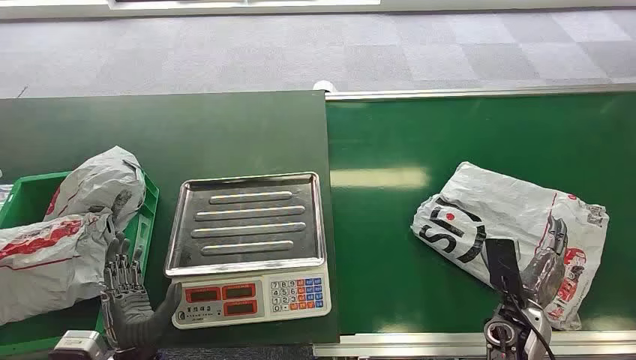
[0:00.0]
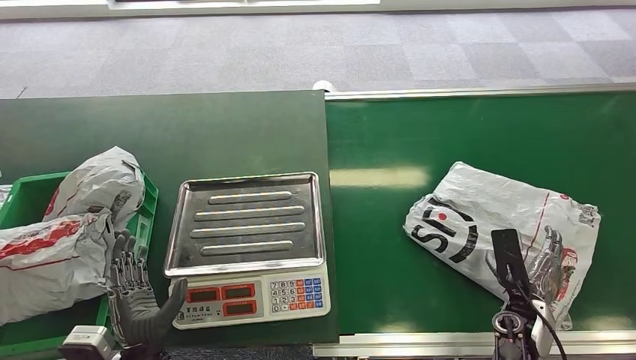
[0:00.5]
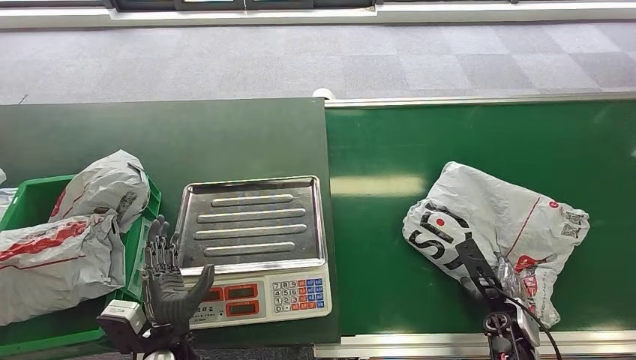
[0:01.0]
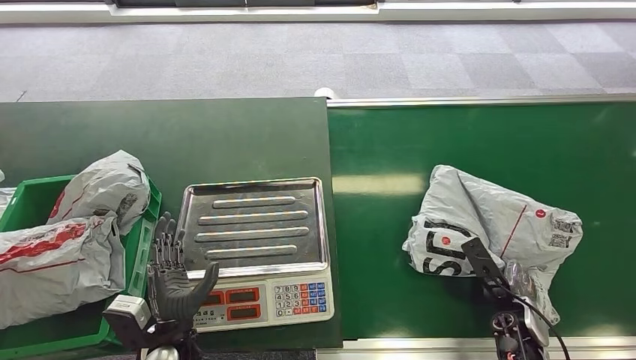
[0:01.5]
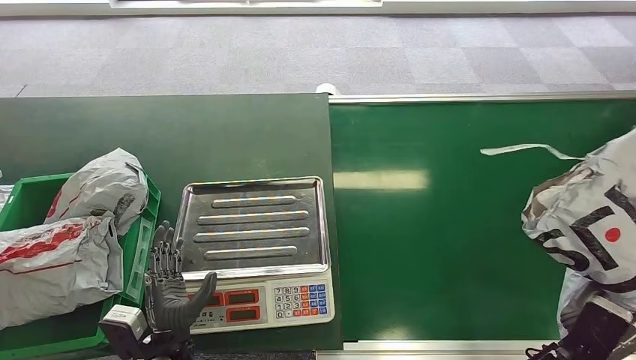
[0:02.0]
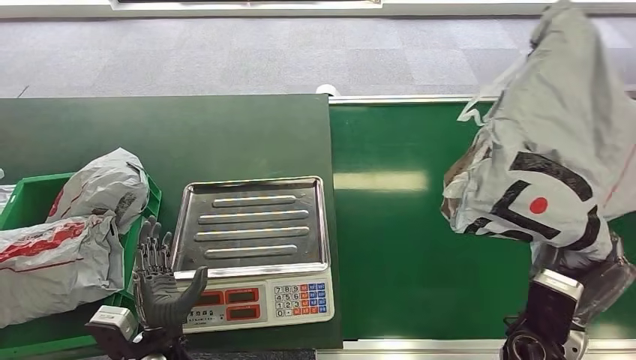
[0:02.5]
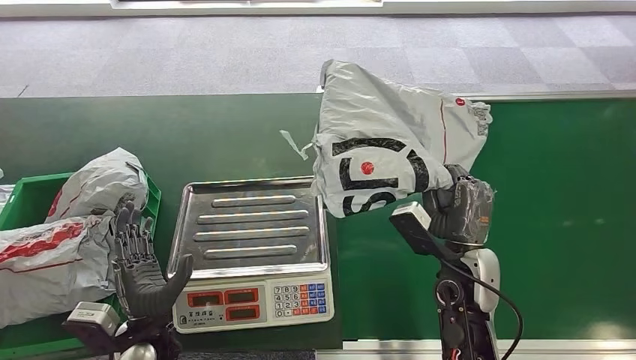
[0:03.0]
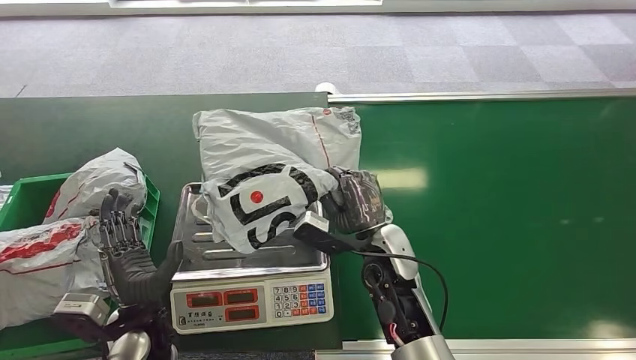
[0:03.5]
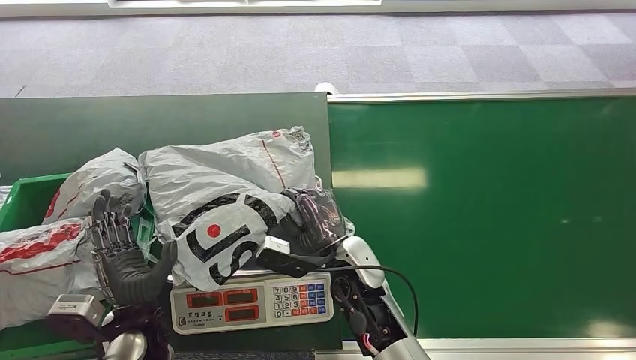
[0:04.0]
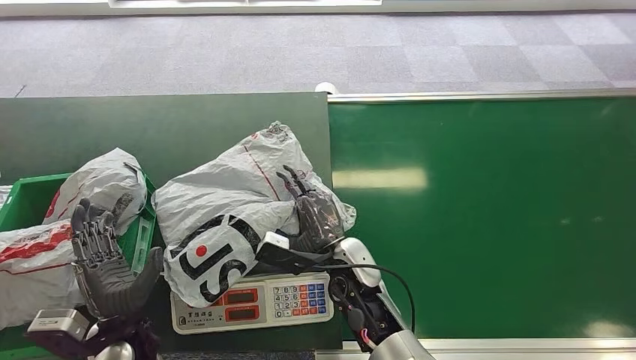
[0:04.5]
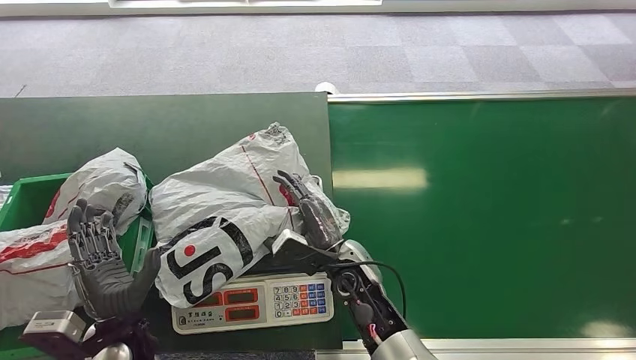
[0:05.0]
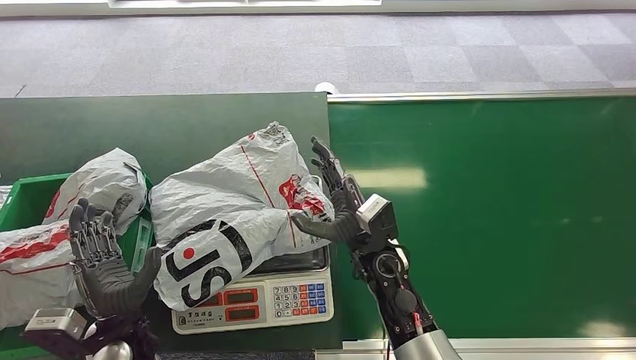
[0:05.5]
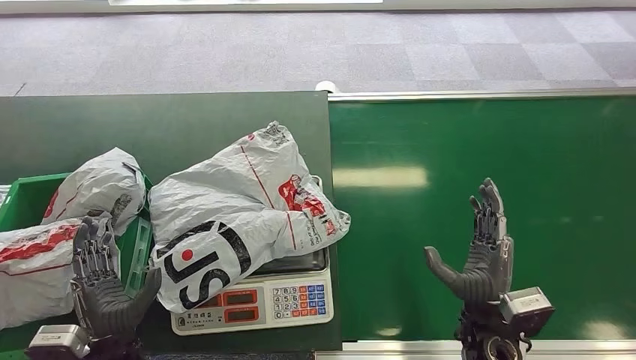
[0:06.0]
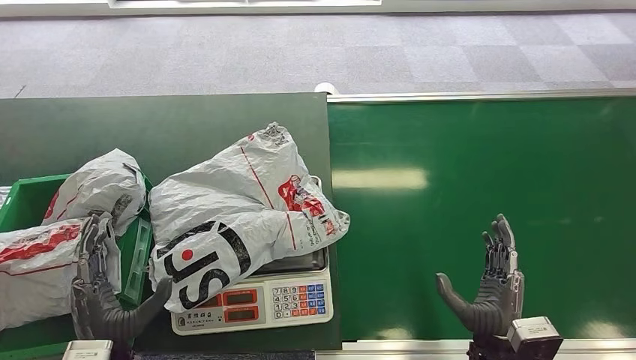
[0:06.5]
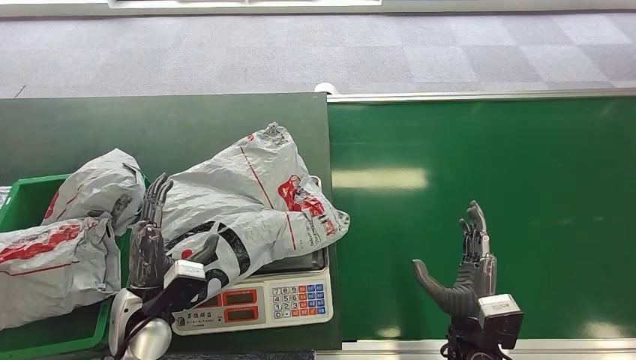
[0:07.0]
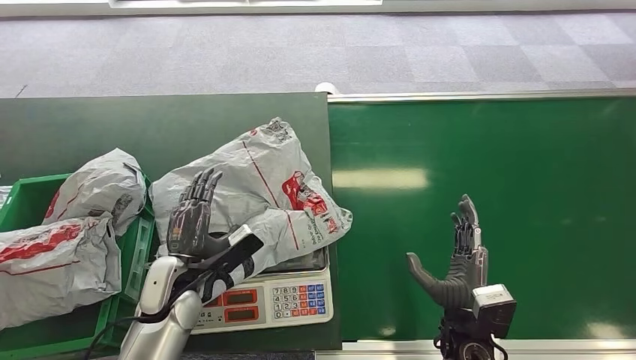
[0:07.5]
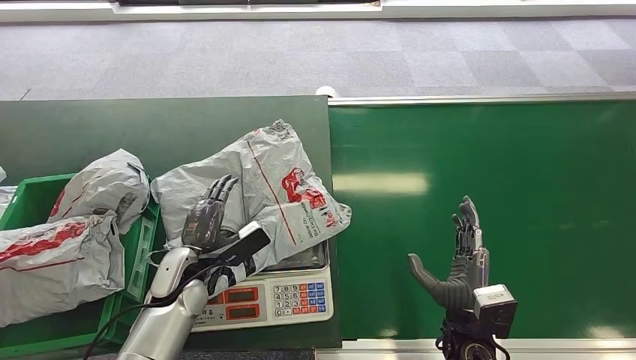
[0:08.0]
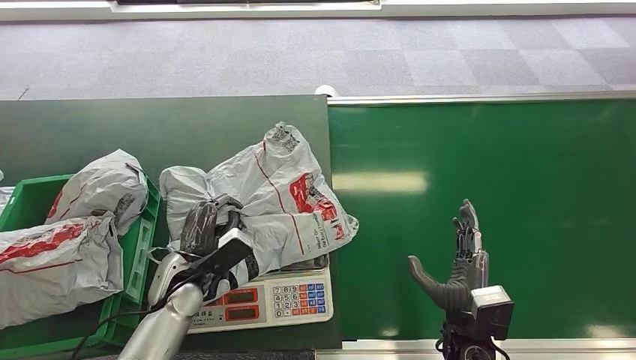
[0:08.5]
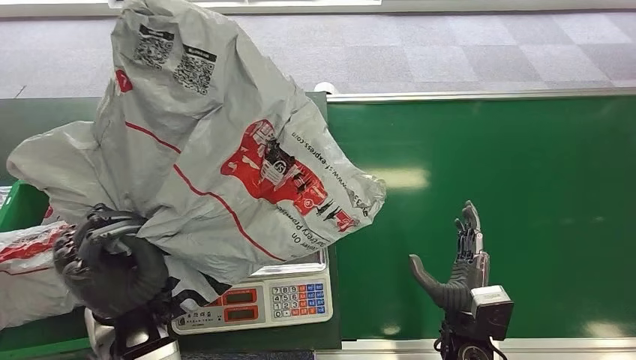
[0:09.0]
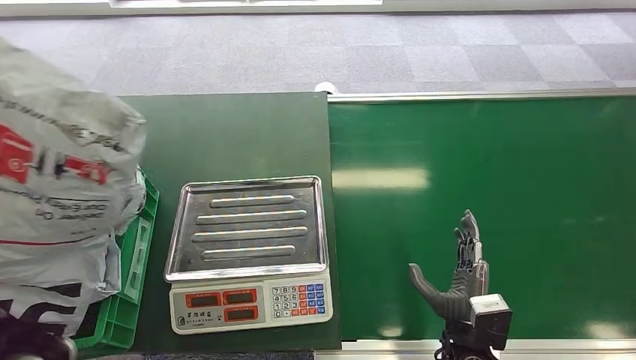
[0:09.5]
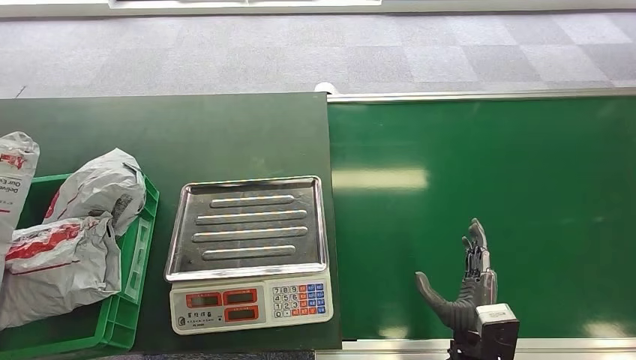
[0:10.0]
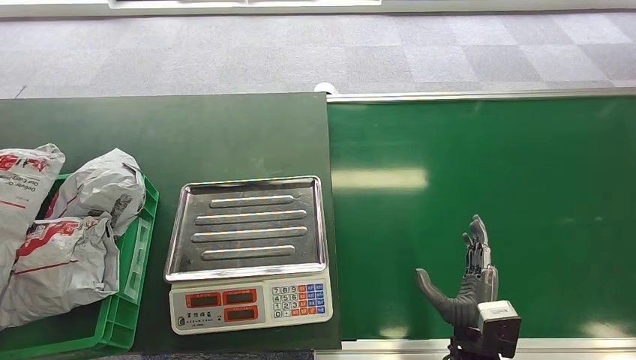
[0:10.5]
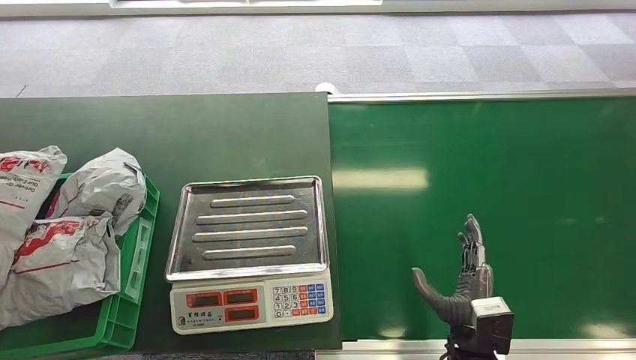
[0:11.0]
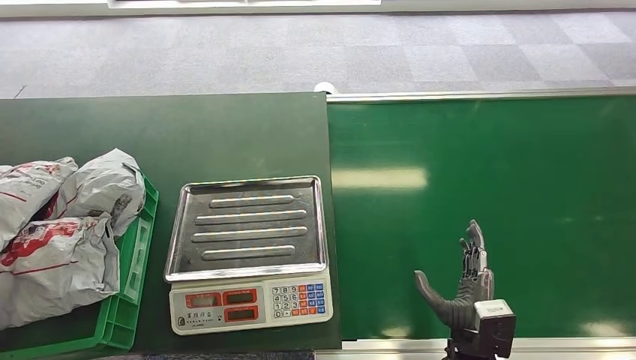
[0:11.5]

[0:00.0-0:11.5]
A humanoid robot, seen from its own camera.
Task of the whole recording: Weigh the package on the weighing device and place it in the left basket.
Step, 0:00.0 to 0:02.5: Pick up the package from the conveyor belt.
Step, 0:03.5 to 0:05.5: Place the package onto the inbound machine.
Step, 0:07.0 to 0:09.0: Pick up the package from the inbound machine.
Step, 0:10.0 to 0:11.5: Place the package into the parcel locker.
0:06.0 to 0:07.5: The left hand shifts about 15 cm forward and to the right.
0:09.5 to 0:11.5: The left hand moves to the left and downward, about 15 cm.

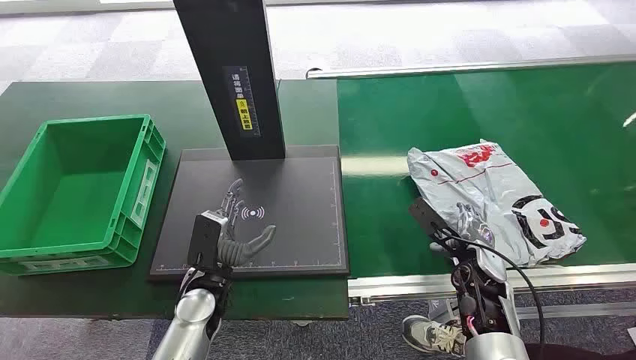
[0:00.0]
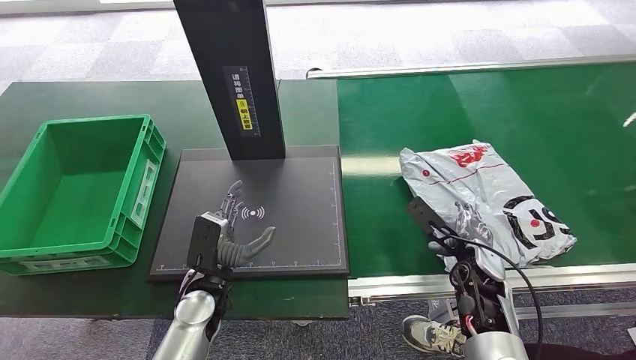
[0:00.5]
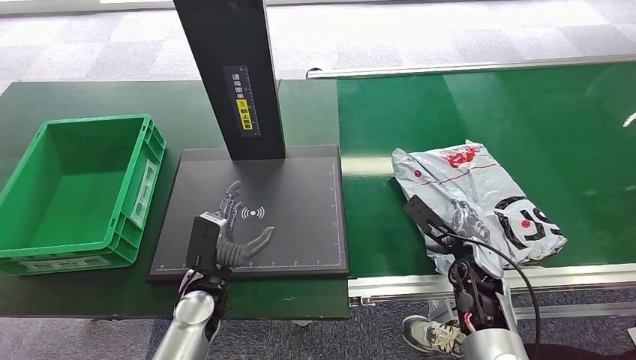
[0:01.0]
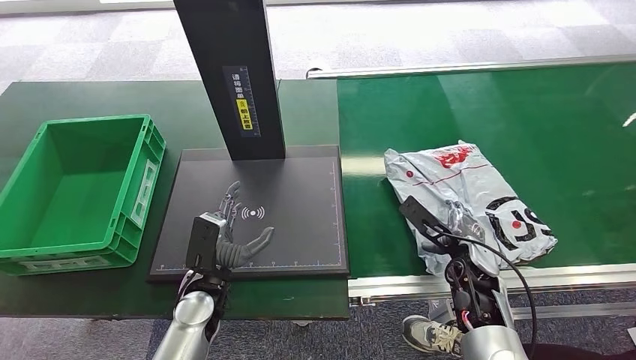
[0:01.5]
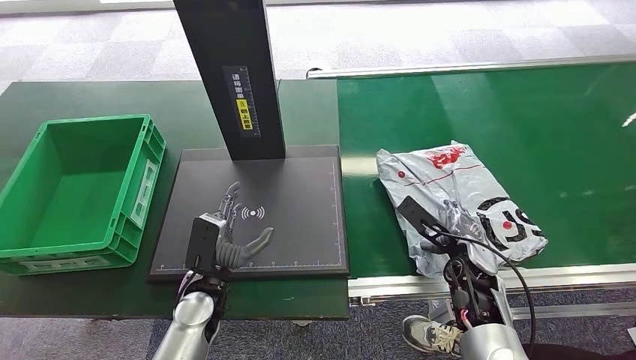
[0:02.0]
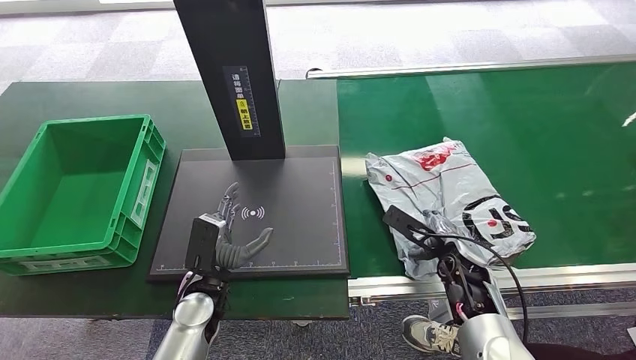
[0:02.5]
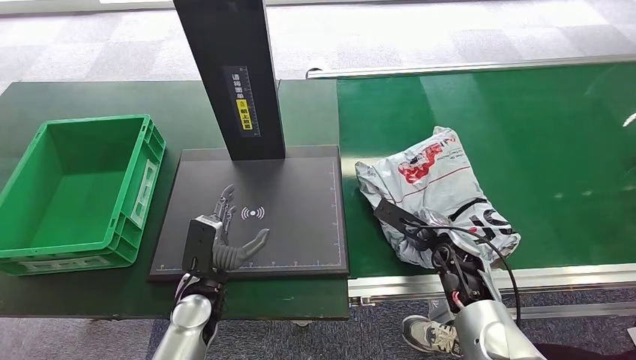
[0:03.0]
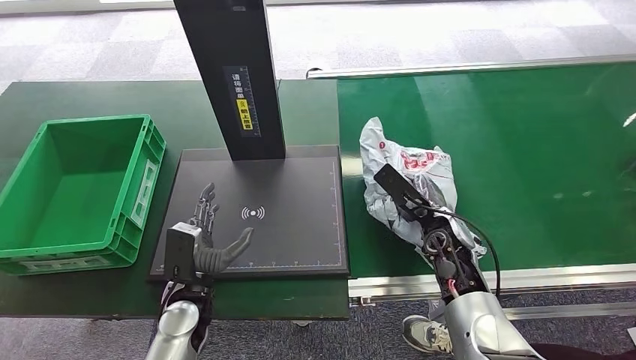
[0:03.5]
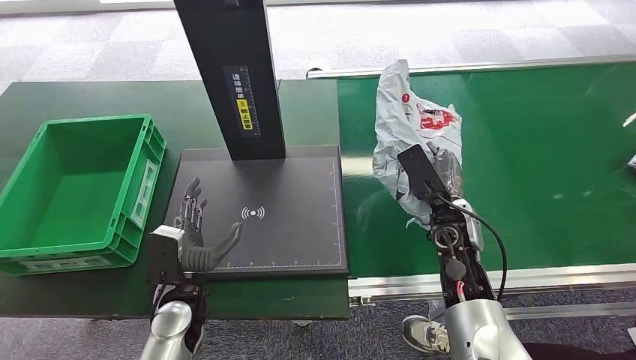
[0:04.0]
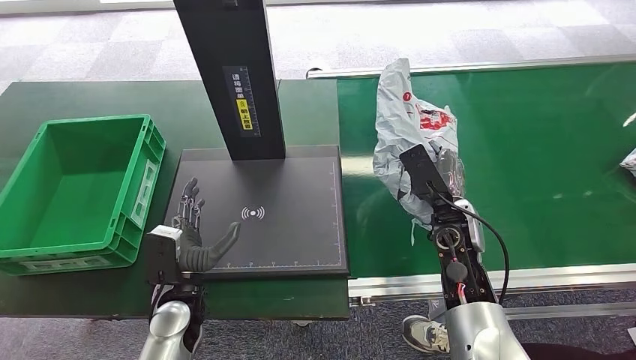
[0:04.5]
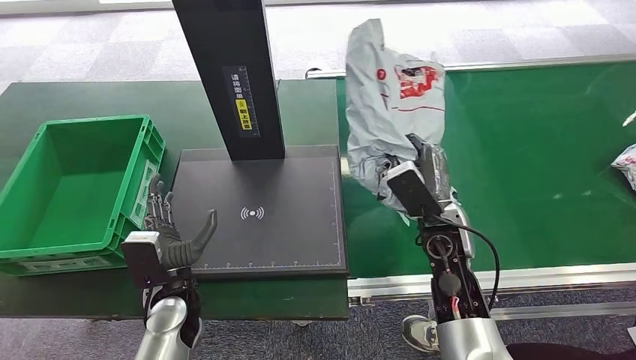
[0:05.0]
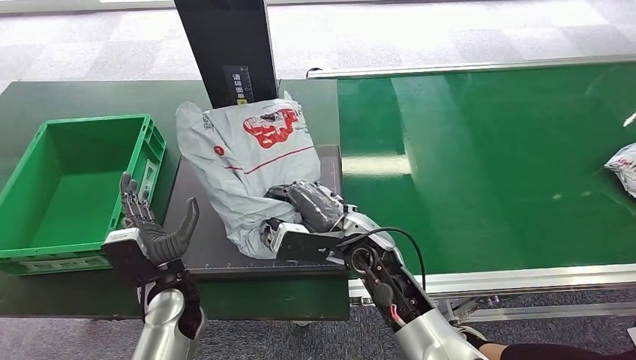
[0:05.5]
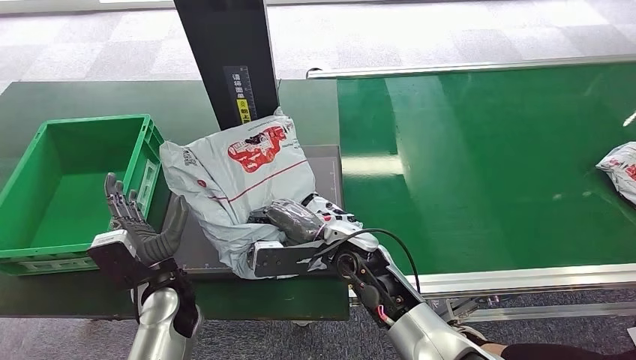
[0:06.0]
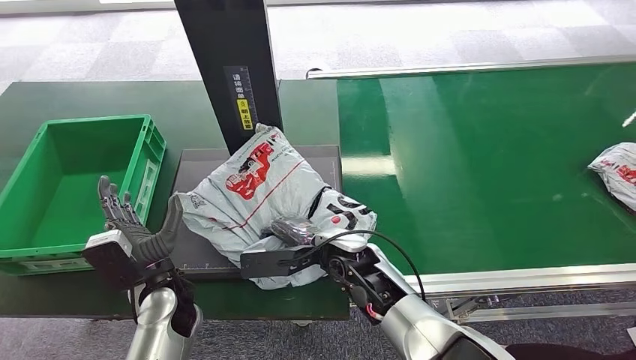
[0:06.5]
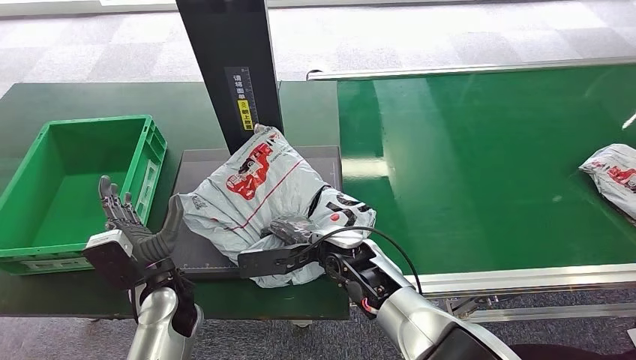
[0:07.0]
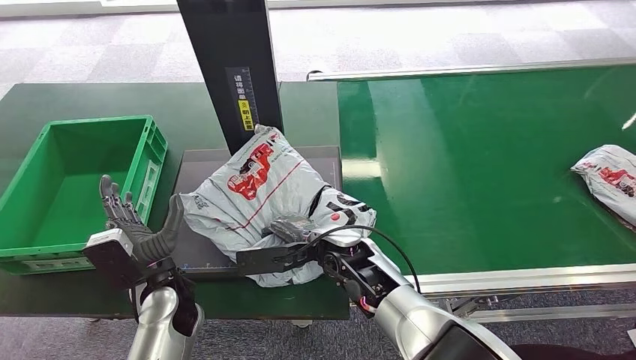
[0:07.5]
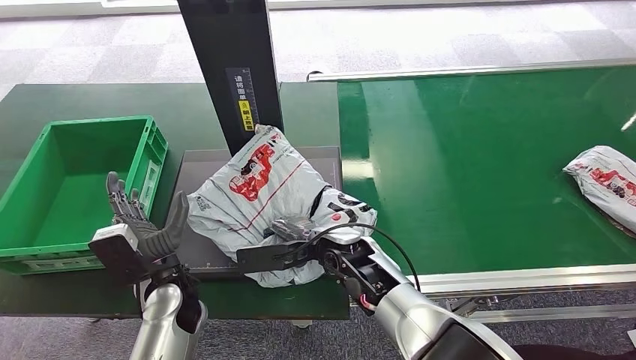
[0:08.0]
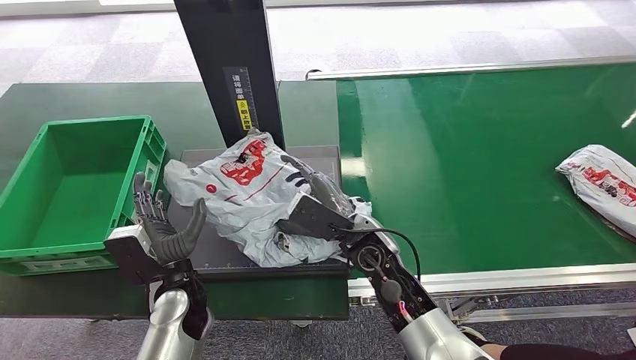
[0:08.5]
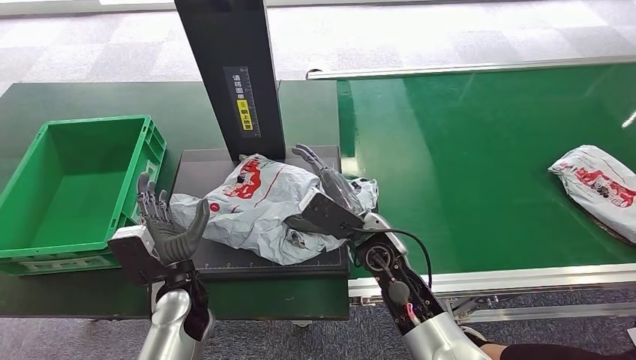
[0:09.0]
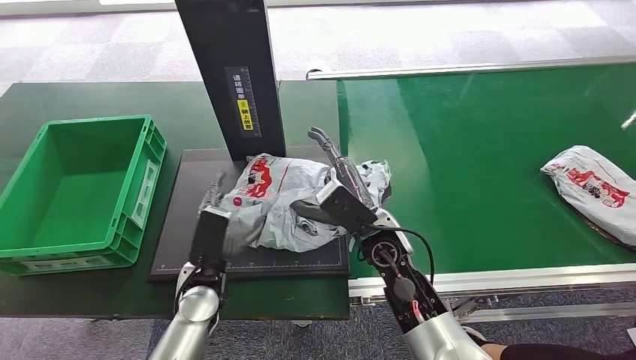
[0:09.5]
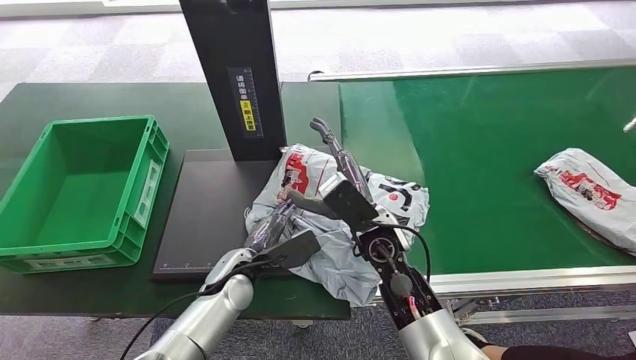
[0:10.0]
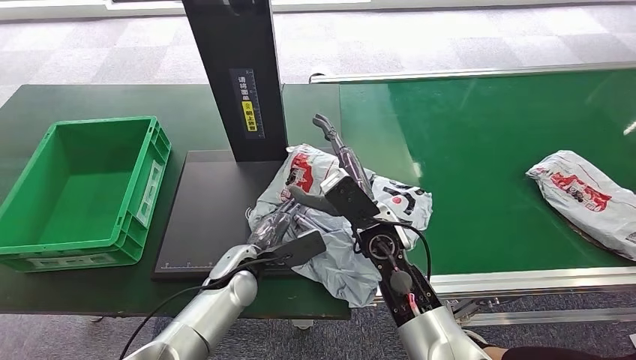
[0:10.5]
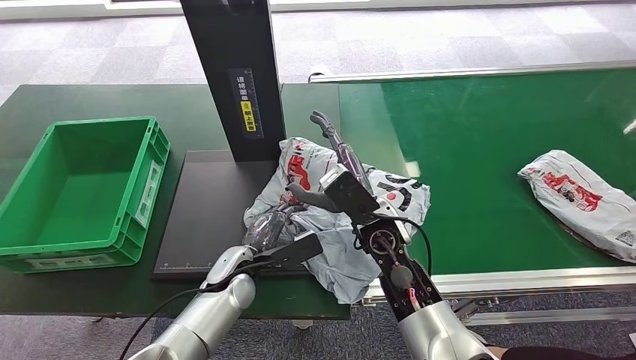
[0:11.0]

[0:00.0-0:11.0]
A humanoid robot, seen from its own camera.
Task of the whole recording: Weigh the package on the weighing device and place it in the left basket.
Step, 0:00.0 to 0:04.5: Pick up the package from the conveyor belt.
Step, 0:05.0 to 0:08.5: Place the package onto the inbound machine.
0:02.0 to 0:03.5: The right hand moves roughly 5 cm.
